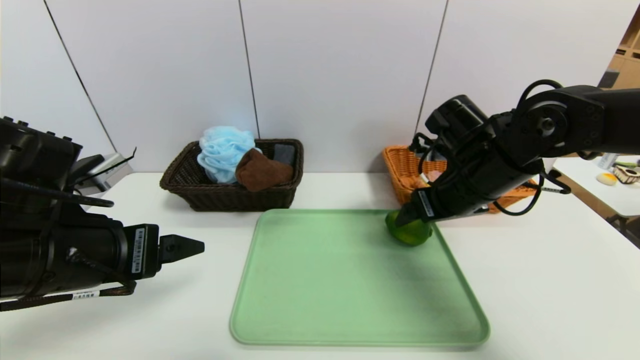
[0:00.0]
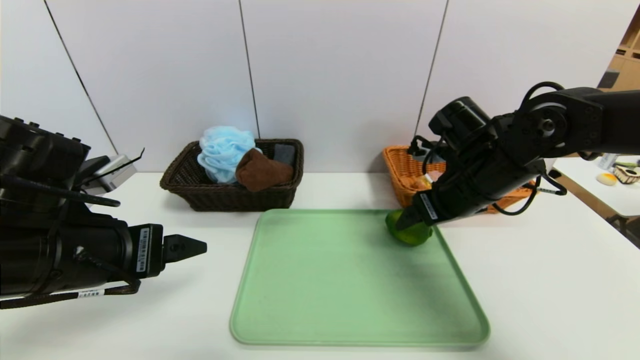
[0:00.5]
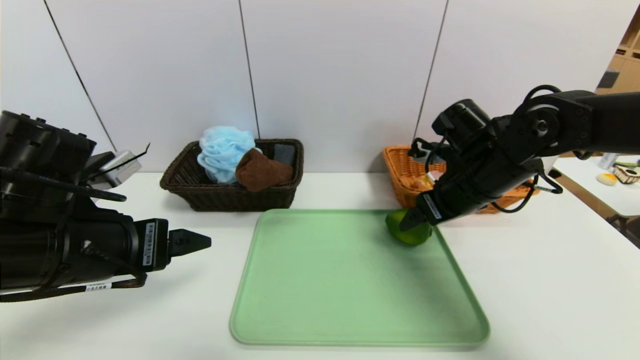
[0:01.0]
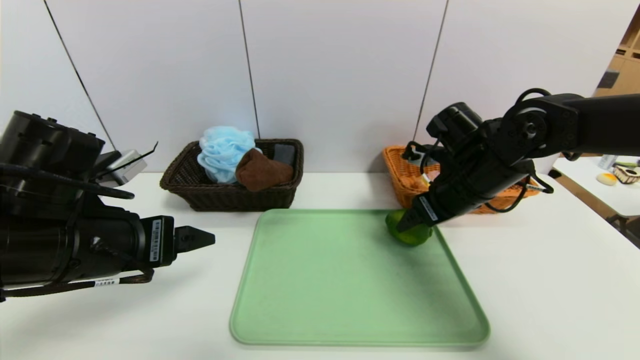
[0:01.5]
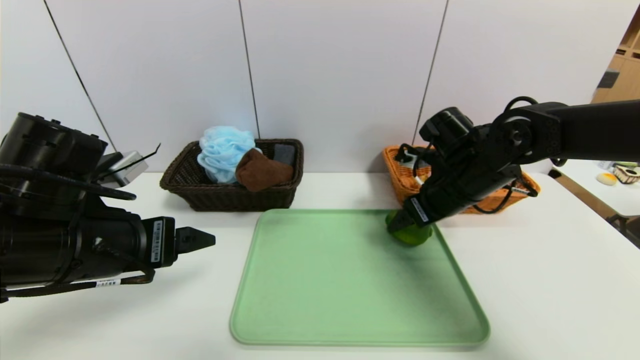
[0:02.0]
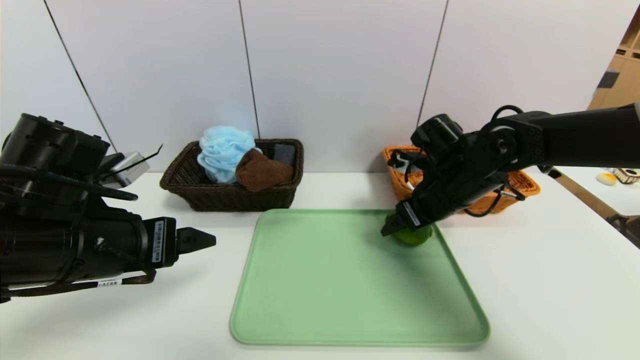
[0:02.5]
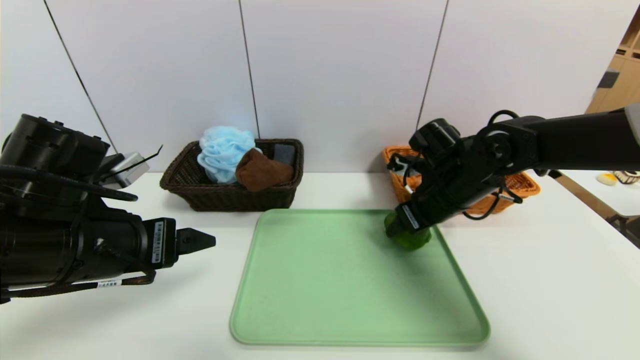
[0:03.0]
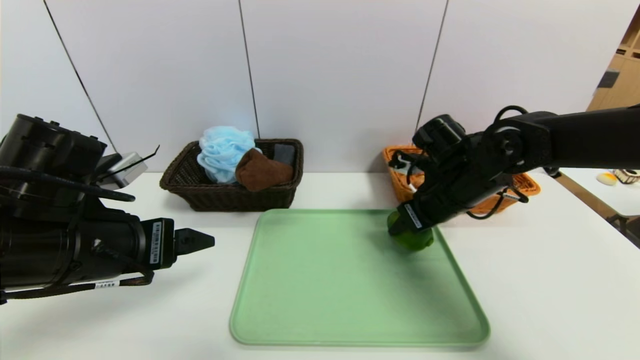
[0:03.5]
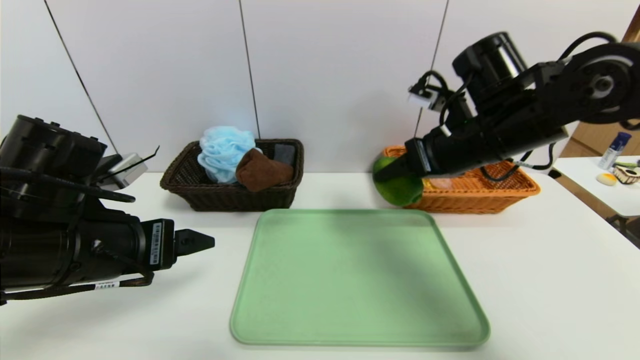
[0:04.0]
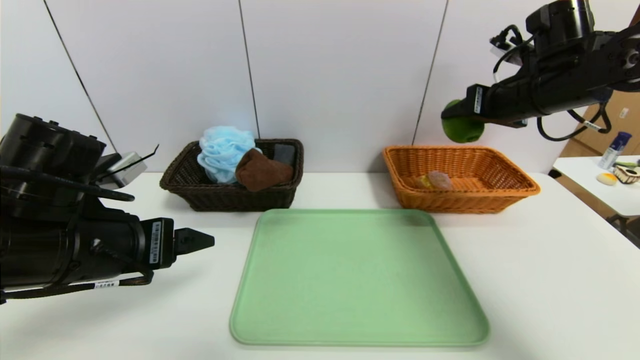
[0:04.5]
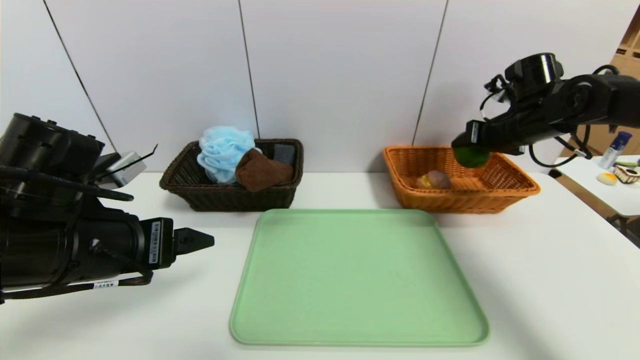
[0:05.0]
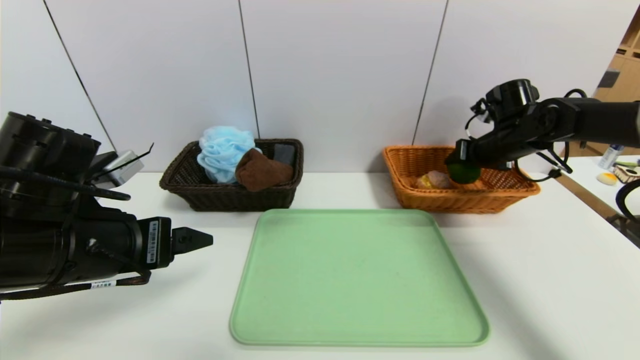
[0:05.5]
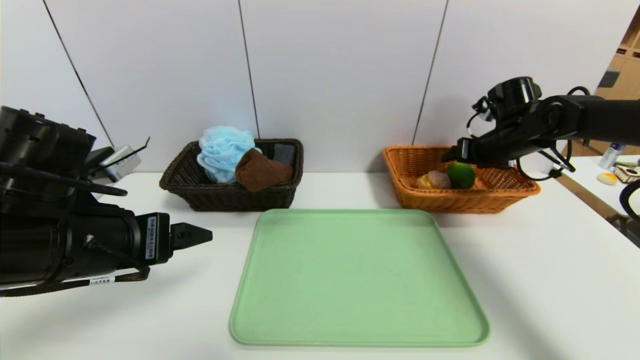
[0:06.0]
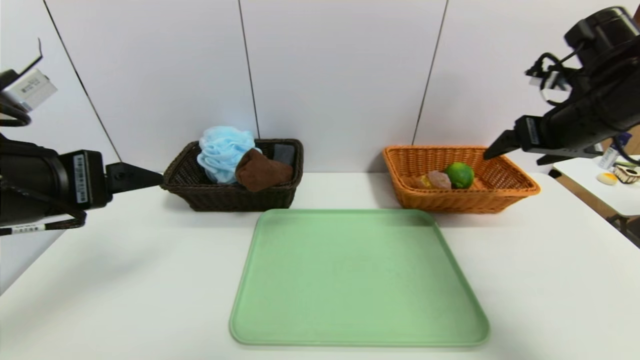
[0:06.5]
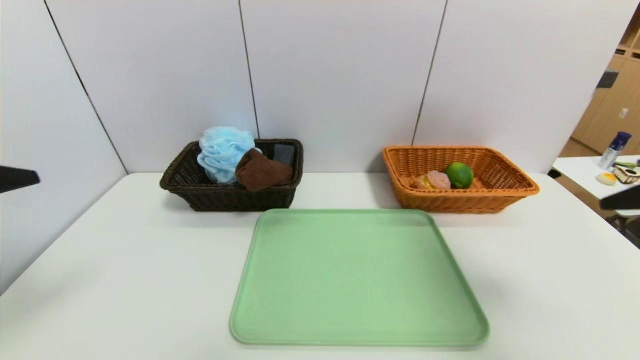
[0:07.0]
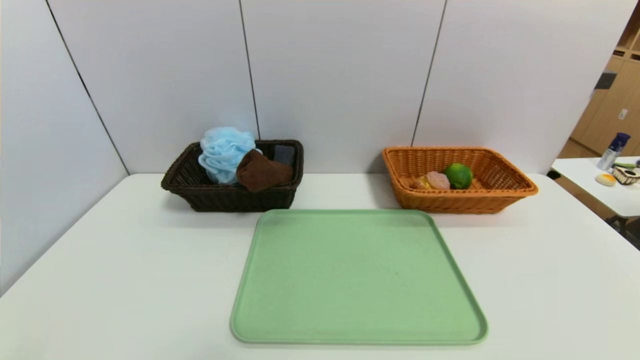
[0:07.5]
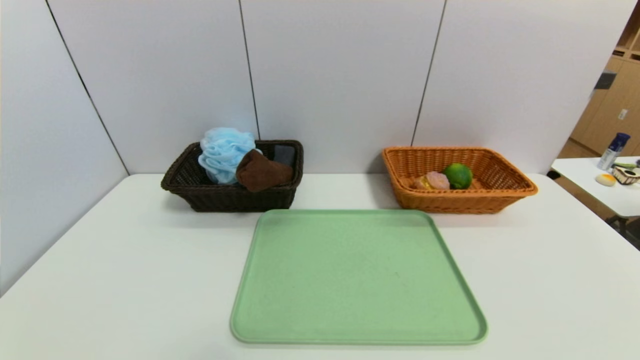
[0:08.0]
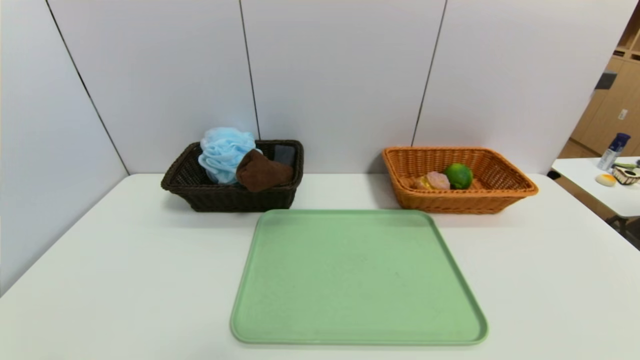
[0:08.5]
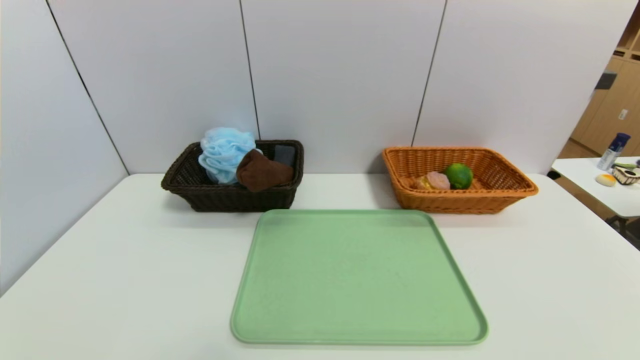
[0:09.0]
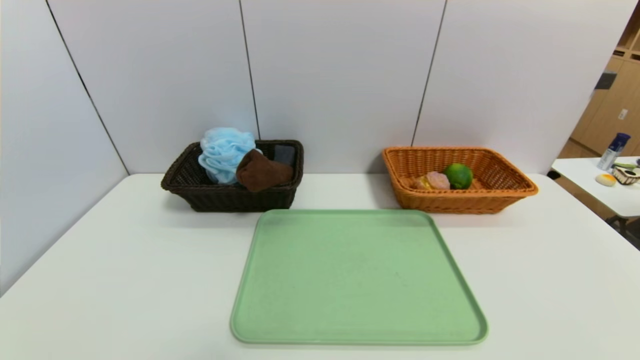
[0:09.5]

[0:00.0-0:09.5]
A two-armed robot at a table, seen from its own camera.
Task of the whole recording: place the food in the right basket with the right gripper, and place the non food items in the left basket with the left gripper.
Step, 0:00.0 to 0:06.0: Grasp the green lemon and put it in the right basket.
0:00.0 to 0:02.0: The grippers move only a little.
0:02.0 to 0:04.0: The right gripper travels upward by some 10 cm, and closes up.
0:04.0 to 0:05.5: The right gripper shifts about 20 cm to the right, forward and downward.
0:05.5 to 0:07.5: The right gripper heads backward, covering some 50 cm, and opens its fingers. Meanwhile the left gripper shifts some 20 cm backward.
